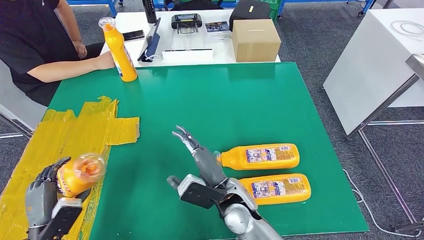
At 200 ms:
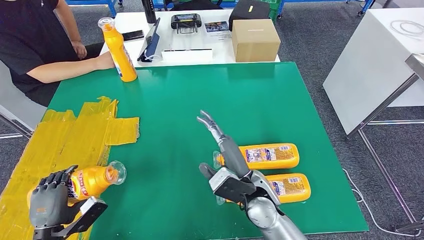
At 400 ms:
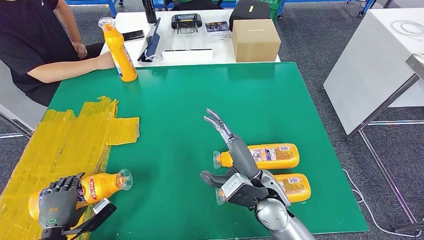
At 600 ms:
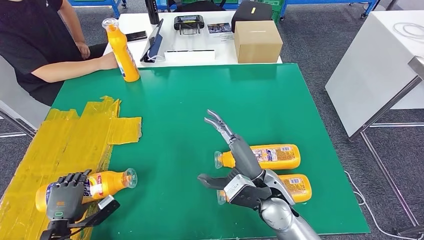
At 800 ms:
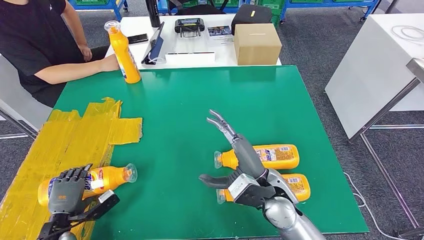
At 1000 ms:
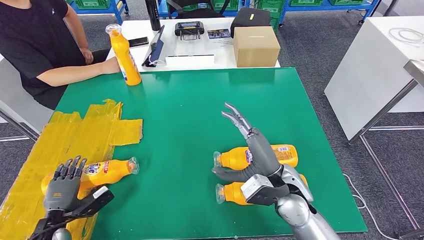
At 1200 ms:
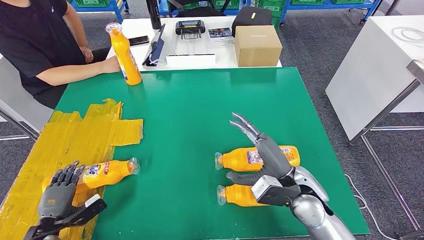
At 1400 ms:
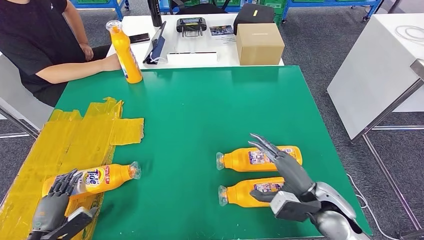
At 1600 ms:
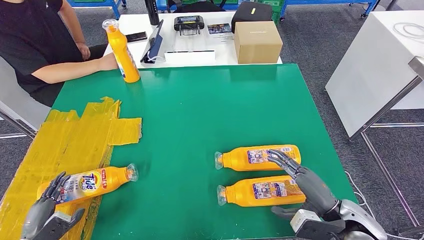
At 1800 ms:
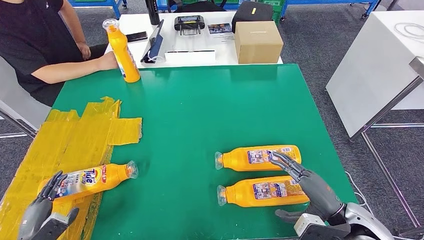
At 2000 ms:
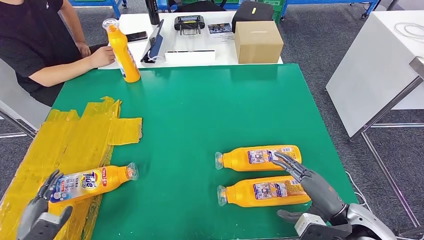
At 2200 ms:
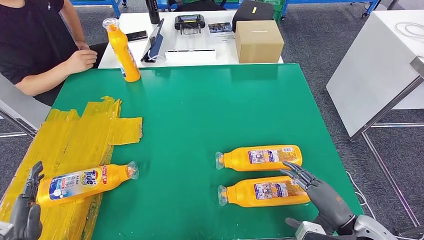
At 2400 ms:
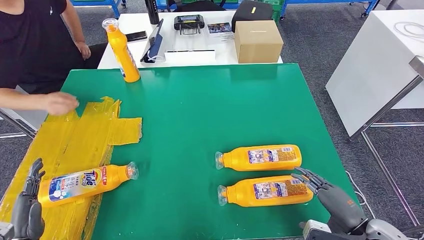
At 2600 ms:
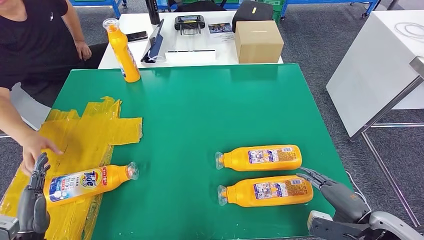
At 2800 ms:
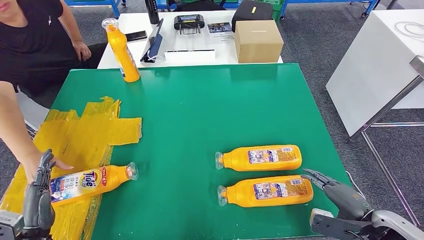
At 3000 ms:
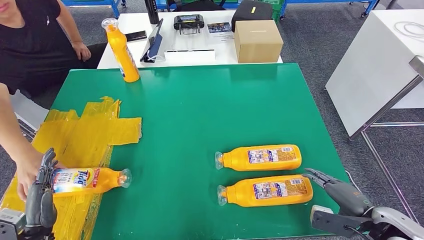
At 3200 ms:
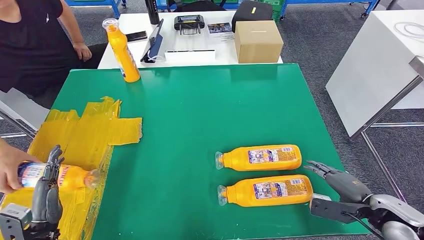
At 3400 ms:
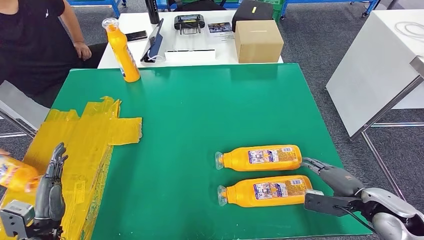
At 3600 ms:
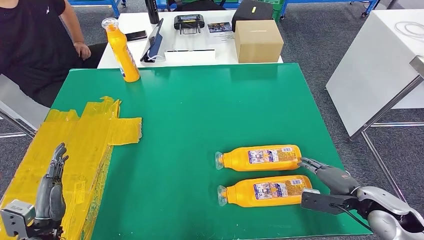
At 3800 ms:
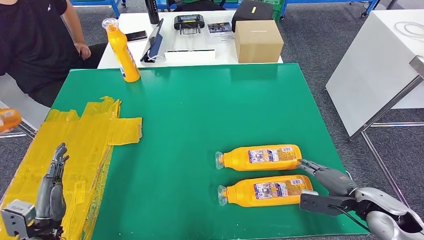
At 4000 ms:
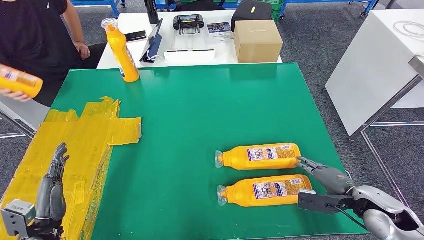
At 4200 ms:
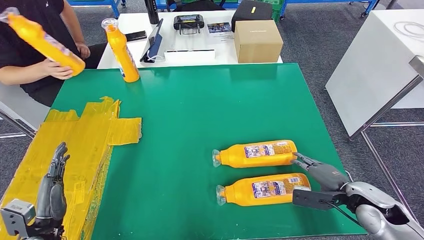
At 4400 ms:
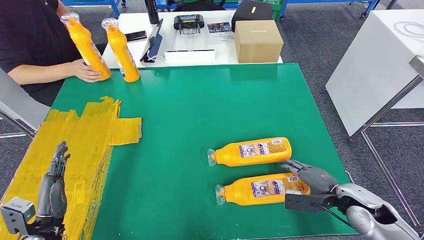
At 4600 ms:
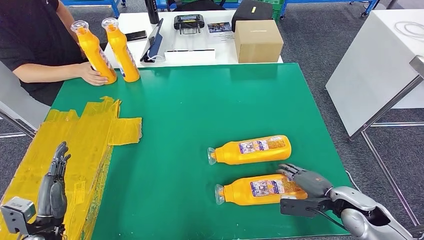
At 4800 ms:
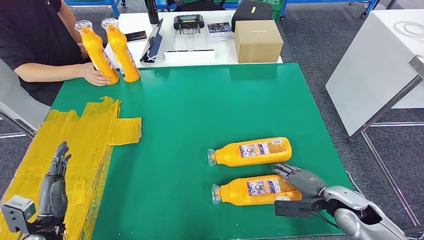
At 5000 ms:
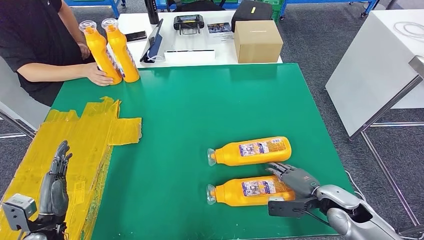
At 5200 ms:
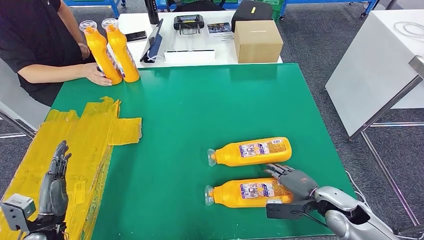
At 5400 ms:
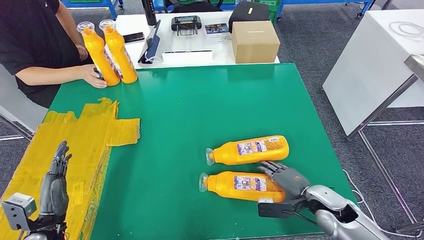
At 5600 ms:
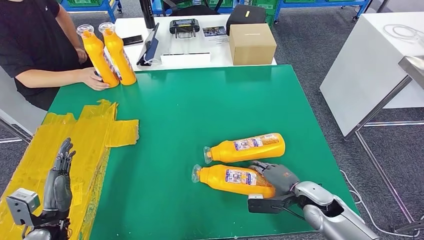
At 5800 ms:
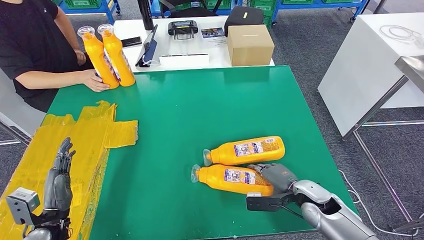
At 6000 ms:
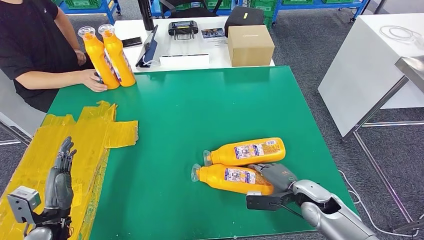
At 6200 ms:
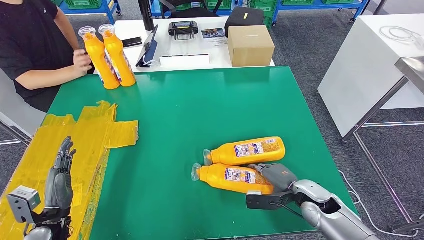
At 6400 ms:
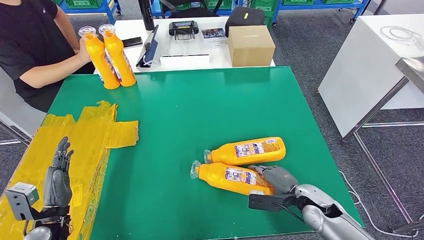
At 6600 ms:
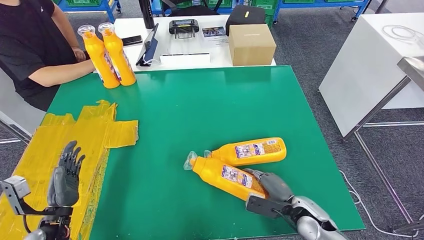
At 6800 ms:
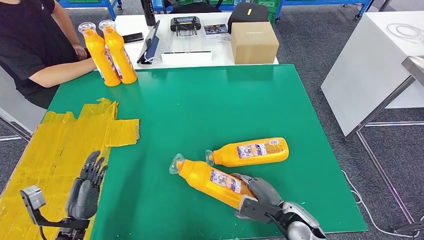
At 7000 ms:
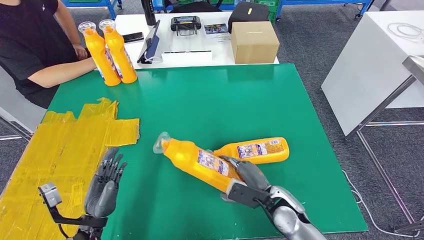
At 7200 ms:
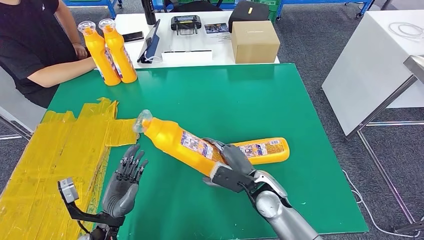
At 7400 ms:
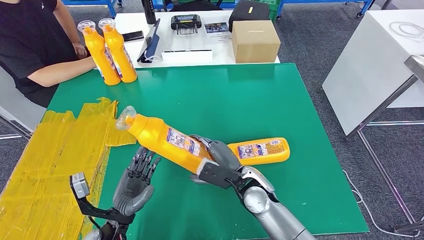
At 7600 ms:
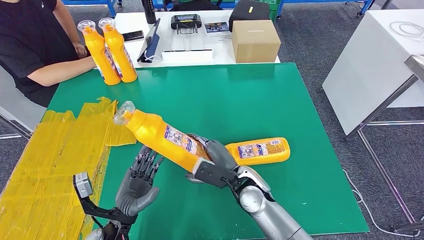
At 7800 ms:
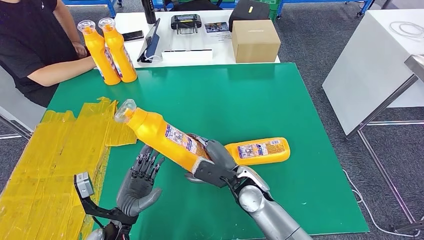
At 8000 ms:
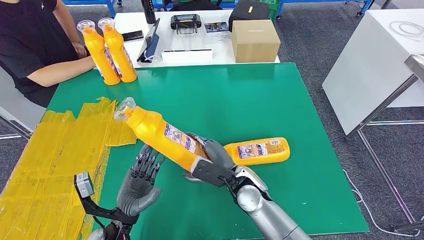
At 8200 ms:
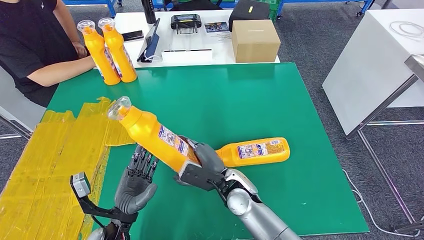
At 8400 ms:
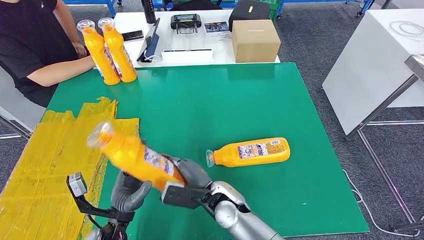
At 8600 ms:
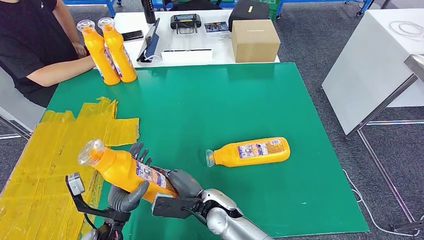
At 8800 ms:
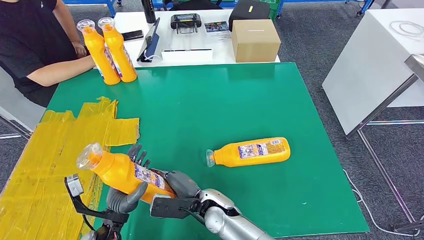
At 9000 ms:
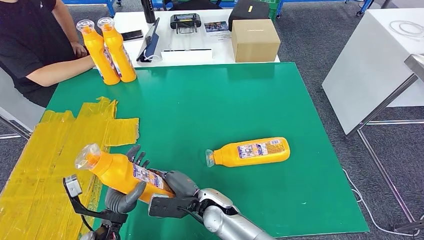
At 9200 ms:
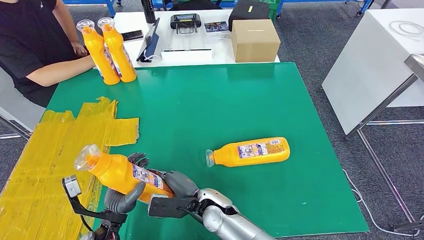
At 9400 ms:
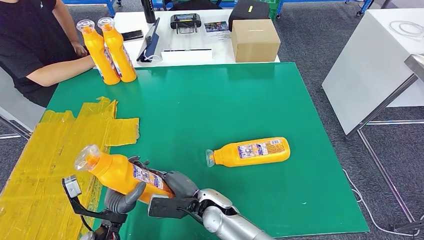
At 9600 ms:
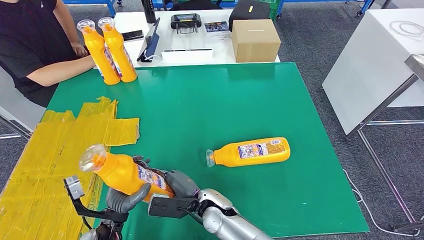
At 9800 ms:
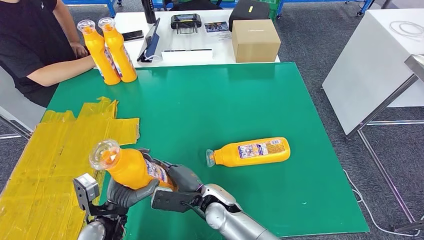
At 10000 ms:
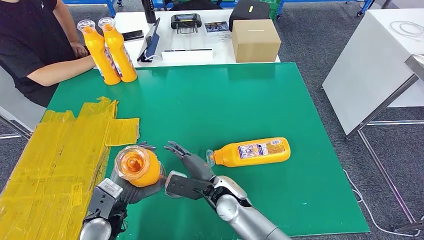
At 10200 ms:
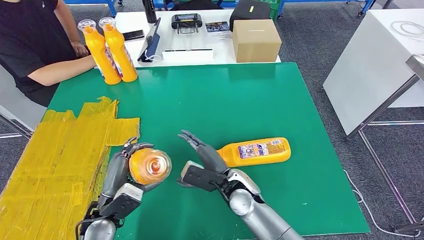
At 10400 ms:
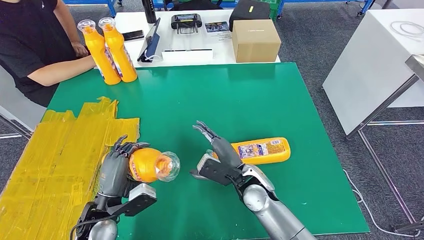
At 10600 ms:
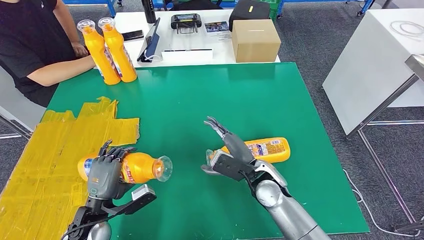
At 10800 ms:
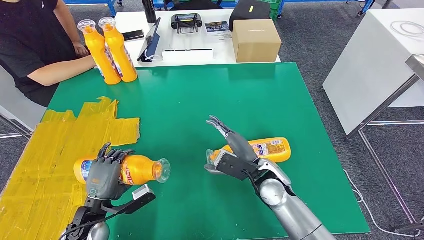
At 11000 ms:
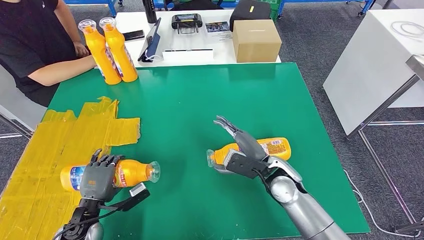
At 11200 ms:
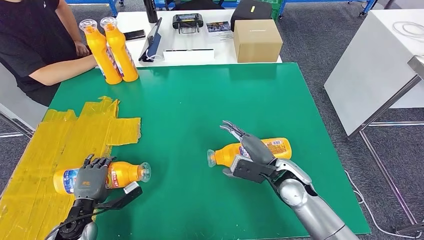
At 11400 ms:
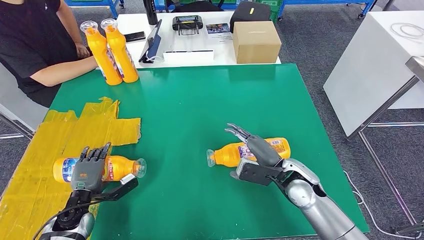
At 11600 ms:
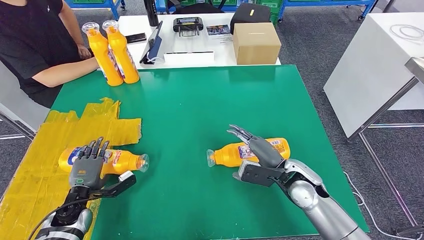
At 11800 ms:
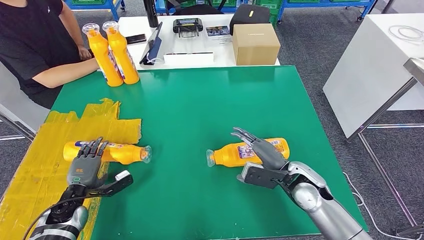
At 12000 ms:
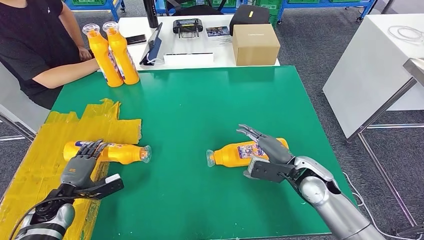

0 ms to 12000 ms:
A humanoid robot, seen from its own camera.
Step, 0 ms to 1600 ms: Flip the fast-moving consumer goods bottle to the front side.
Step, 4400 ms to 7400 ms: Pick up the fast-moving consumer goods bottle from the table.
1600 ms to 3000 ms: The right hand moves to the right, some 10 cm, while the left hand shifts by about 5 cm.
3000 ms to 4400 ms: The right hand is displaced forward by about 5 cm.
7600 ms to 9000 ms: The right hand goes about 10 cm to the left and downward.
9000 ms to 10400 ms: The right hand is displaced to the right and upward by approximately 10 cm. The left hand ends up about 5 cm from where it was.

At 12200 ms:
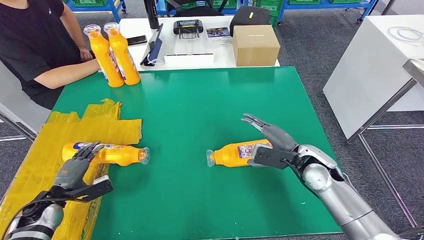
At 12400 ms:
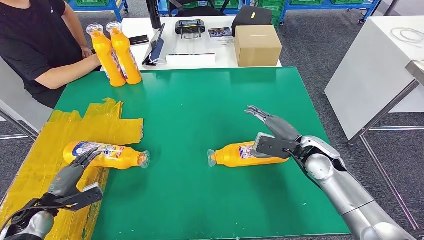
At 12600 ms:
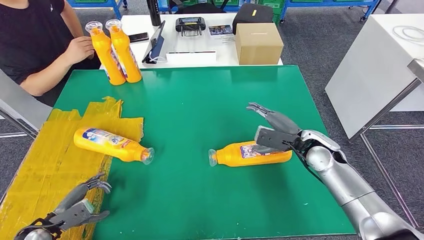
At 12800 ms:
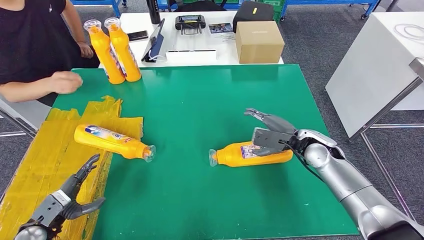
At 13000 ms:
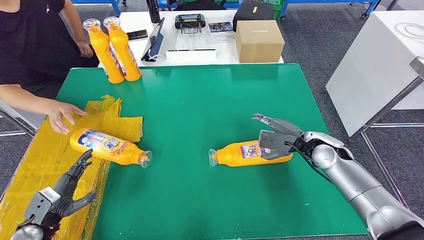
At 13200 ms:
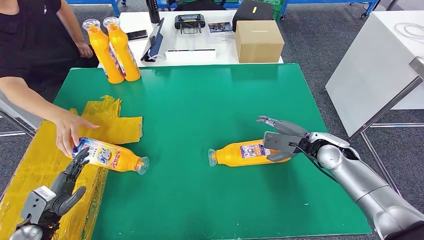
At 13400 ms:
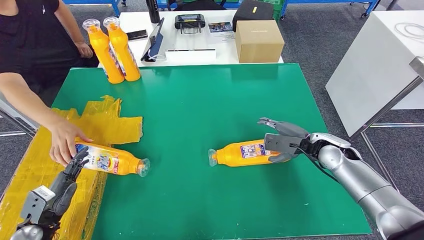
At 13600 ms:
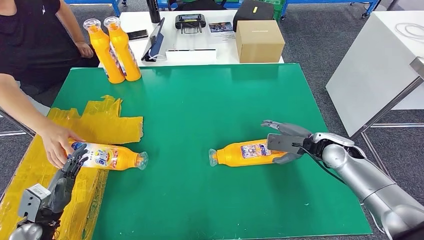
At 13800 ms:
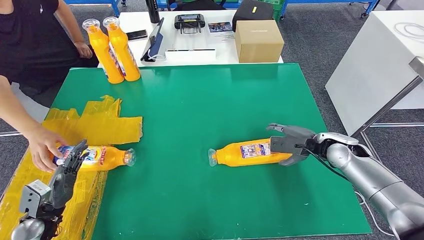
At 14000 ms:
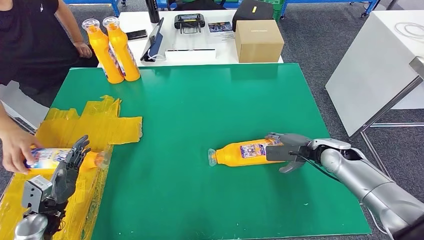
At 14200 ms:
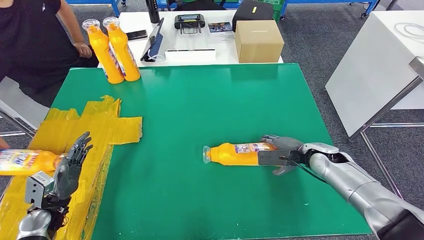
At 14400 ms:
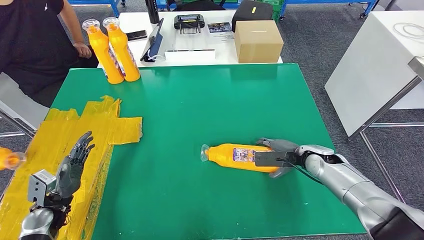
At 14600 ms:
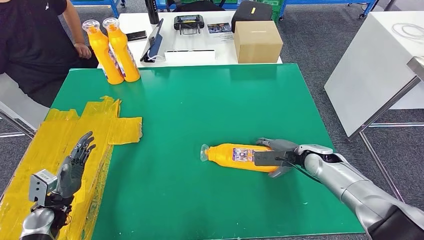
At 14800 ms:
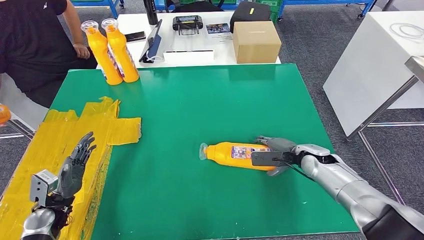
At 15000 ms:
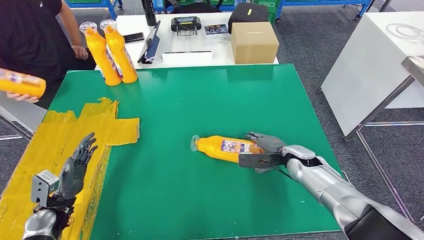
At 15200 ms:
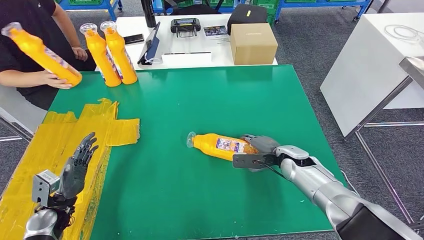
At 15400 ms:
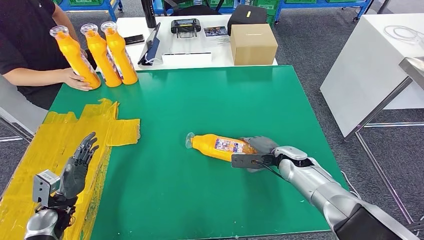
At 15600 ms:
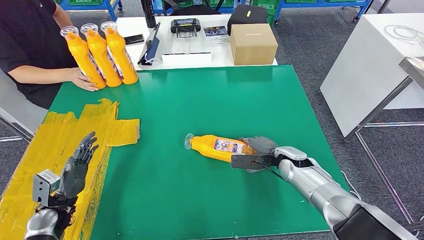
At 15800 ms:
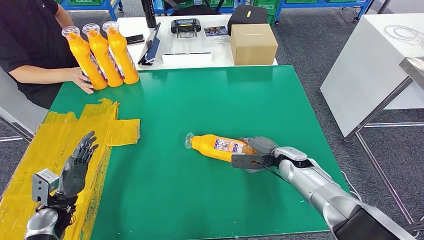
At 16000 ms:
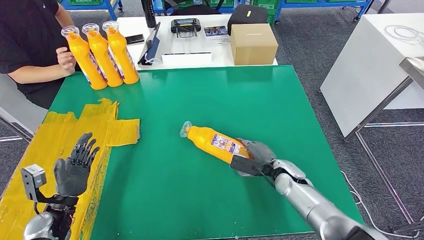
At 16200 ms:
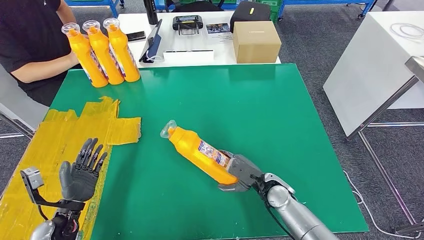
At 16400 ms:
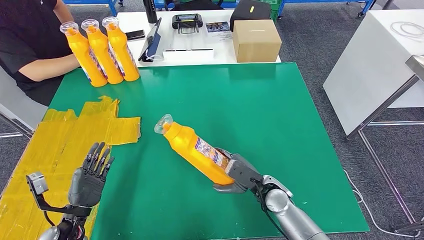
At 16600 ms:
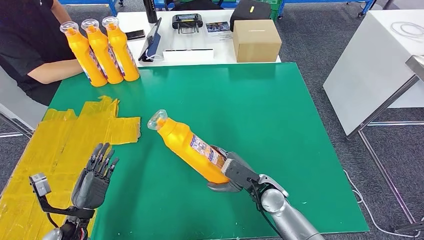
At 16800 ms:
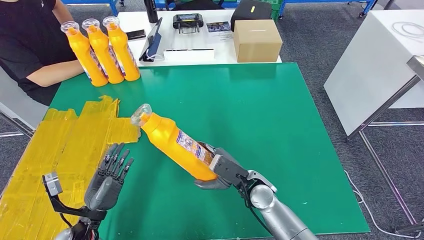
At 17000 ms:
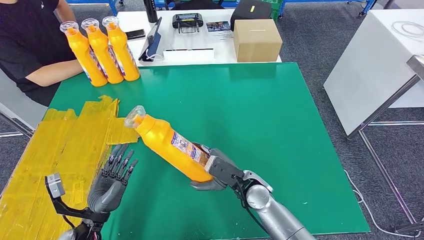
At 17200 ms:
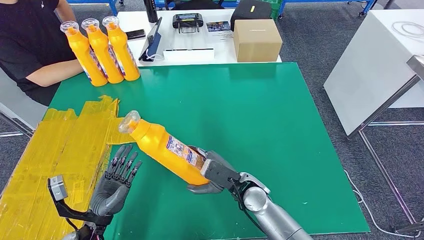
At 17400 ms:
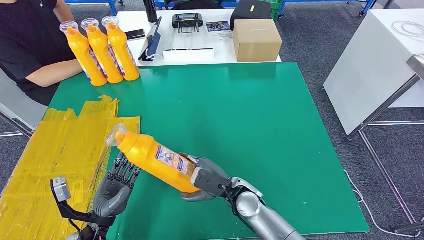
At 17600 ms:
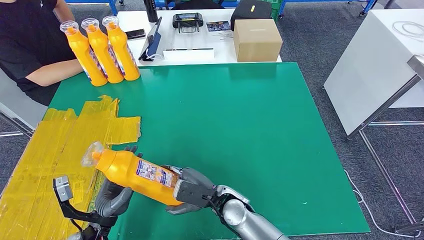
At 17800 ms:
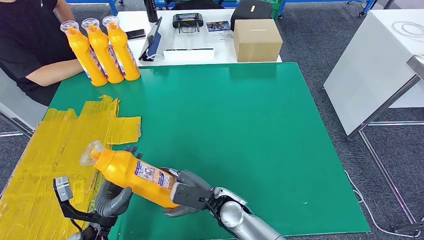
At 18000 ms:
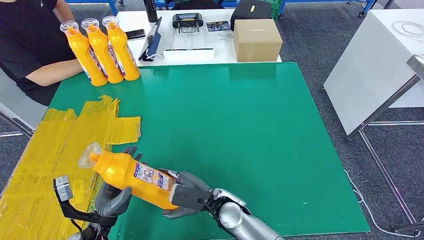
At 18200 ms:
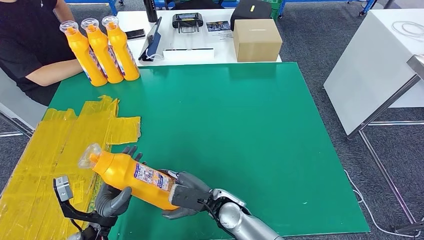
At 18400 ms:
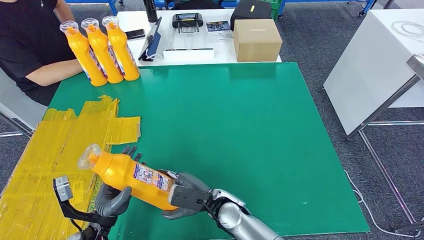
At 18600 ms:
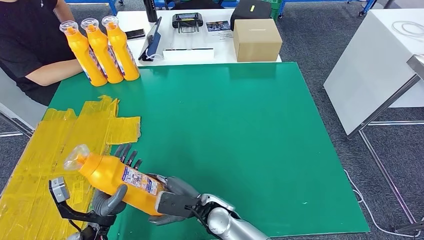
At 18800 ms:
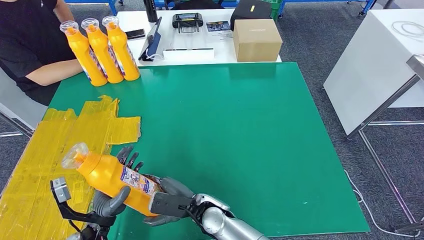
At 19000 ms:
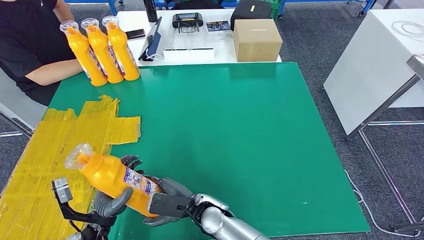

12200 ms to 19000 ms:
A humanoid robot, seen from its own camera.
Step, 14400 ms to 16400 ms: Pick up the fast-moving consumer goods bottle from the table.
17600 ms to 19000 ms: The right hand is displaced to the left by some 5 cm.
